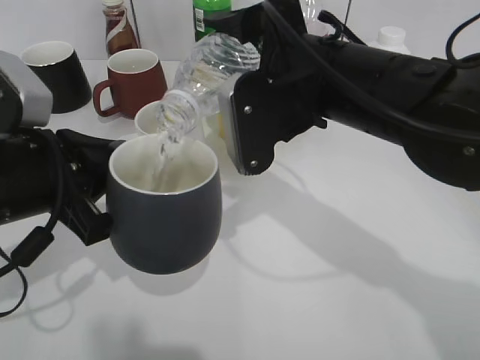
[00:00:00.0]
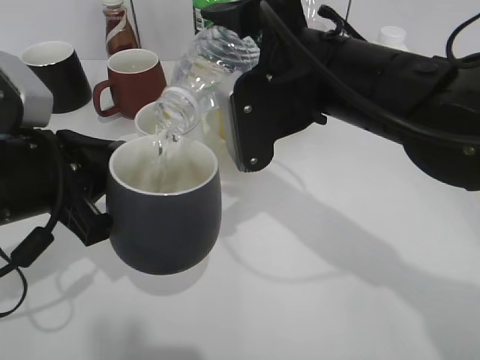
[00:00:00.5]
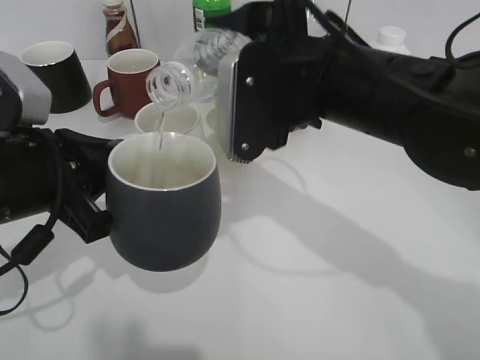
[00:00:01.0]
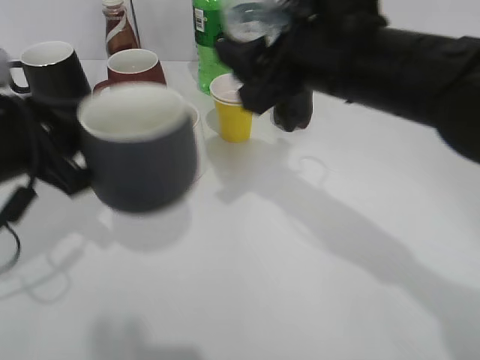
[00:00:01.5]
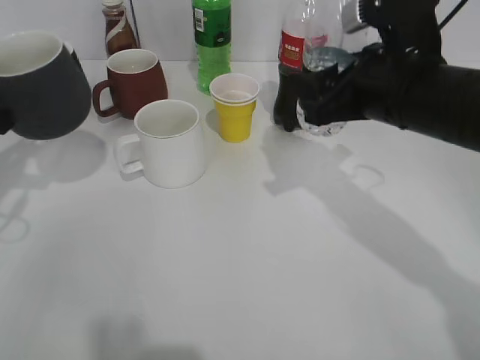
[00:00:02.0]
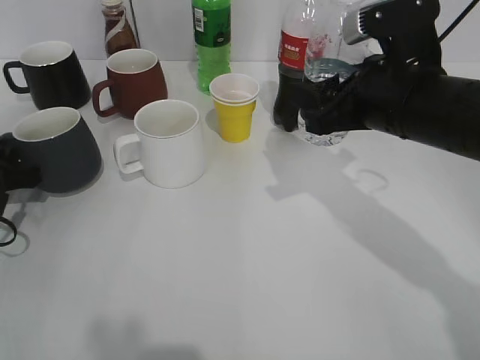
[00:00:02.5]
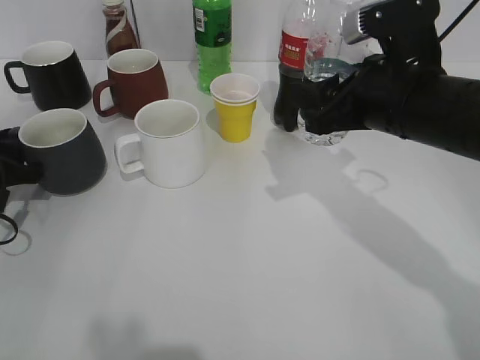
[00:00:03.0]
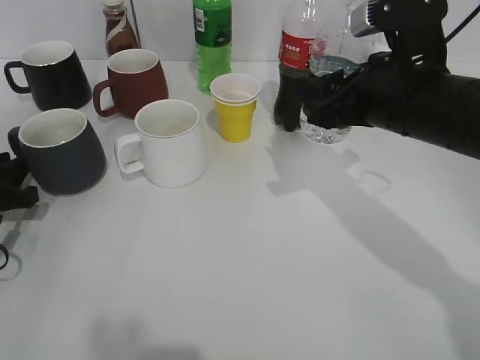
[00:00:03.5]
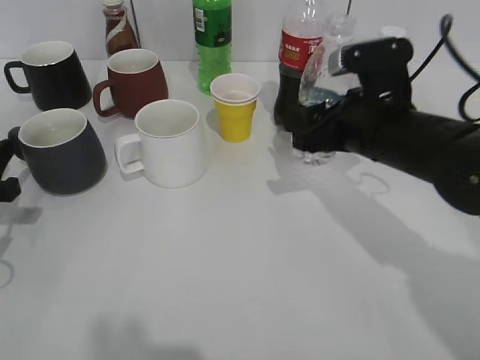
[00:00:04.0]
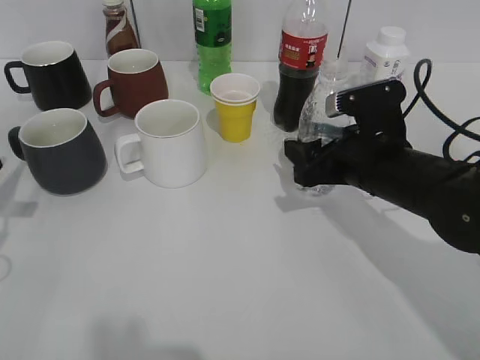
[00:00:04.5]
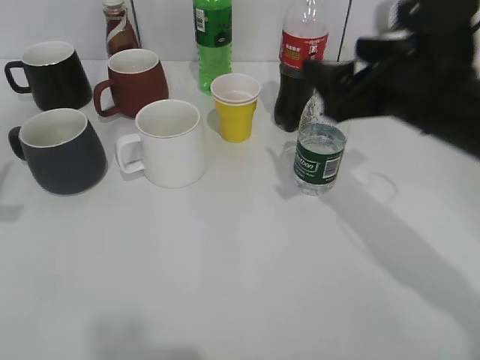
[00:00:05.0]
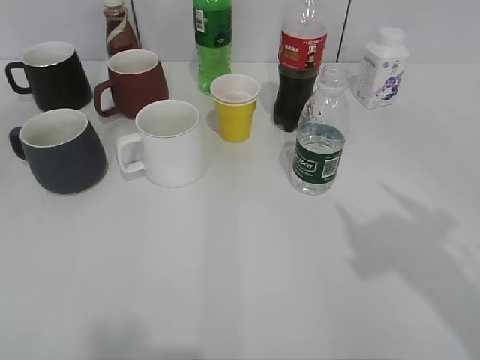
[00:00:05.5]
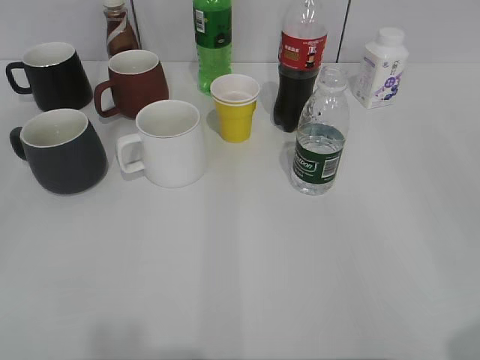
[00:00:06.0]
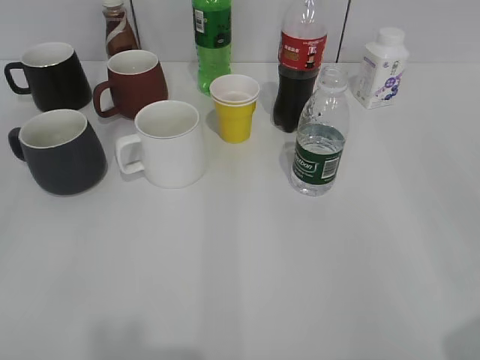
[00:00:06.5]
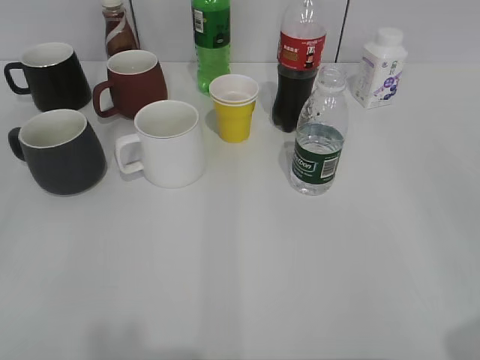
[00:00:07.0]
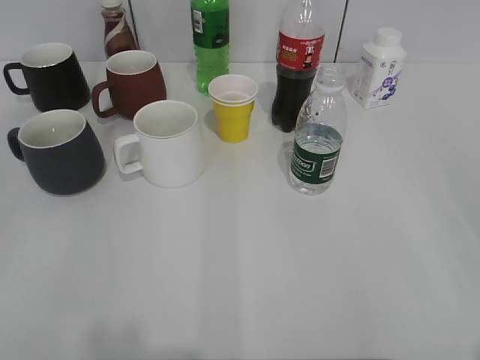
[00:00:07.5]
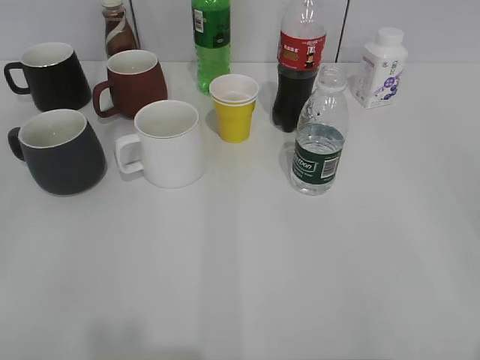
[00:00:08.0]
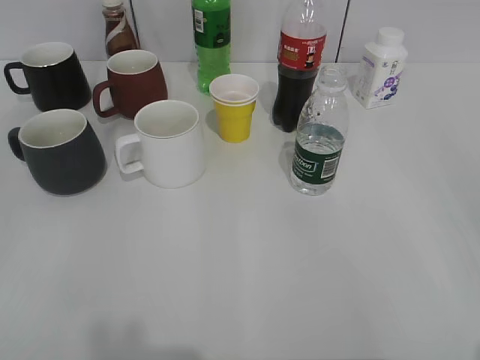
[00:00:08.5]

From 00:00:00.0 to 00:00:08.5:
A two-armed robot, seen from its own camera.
Step, from 00:00:01.5 to 00:00:03.5: Place the black cup on the table with left gripper.
Step, from 00:00:04.0 to 00:00:04.5: Place the water bottle on the table with right gripper.
From 00:00:00.0 to 00:00:02.0: The right gripper travels to the right by approximately 10 cm. The left gripper heads to the left and forward, covering roughly 15 cm.
From 00:00:02.0 to 00:00:04.0: Both grippers move downward, approximately 5 cm. The left gripper opens up.
From 00:00:04.0 to 00:00:06.5: The right gripper shifts roughly 30 cm backward and to the right, and opens up, while the left gripper shifts some 30 cm backward and upward, and opens.

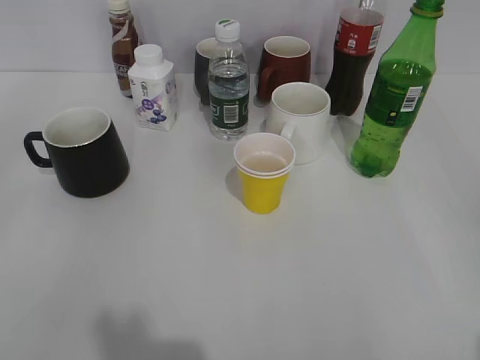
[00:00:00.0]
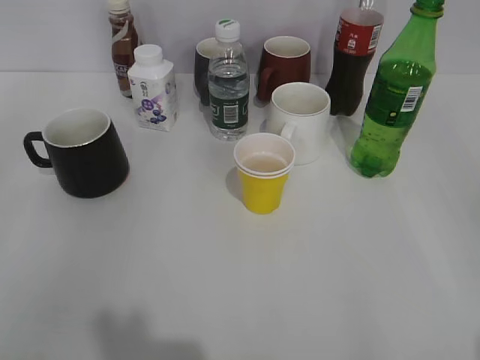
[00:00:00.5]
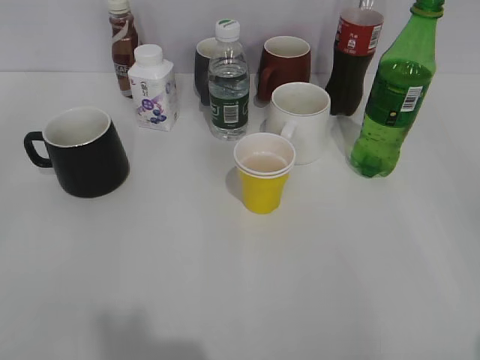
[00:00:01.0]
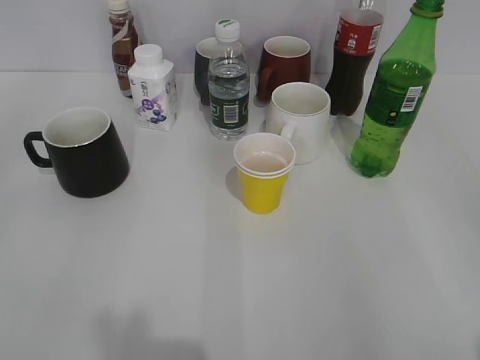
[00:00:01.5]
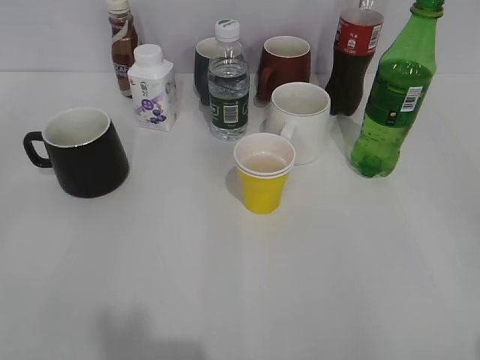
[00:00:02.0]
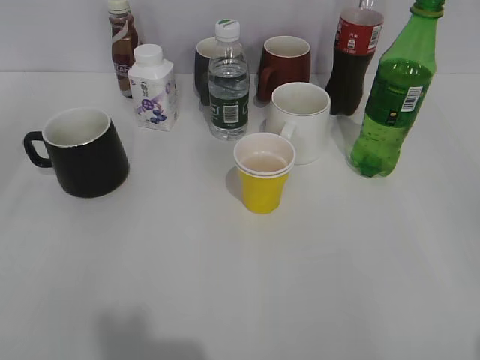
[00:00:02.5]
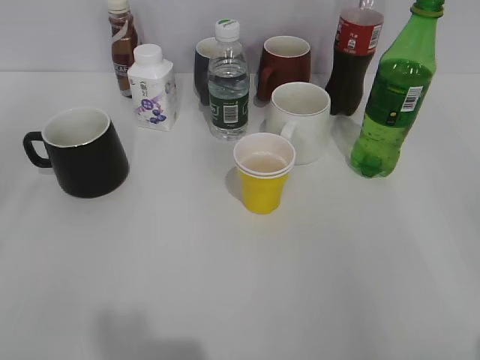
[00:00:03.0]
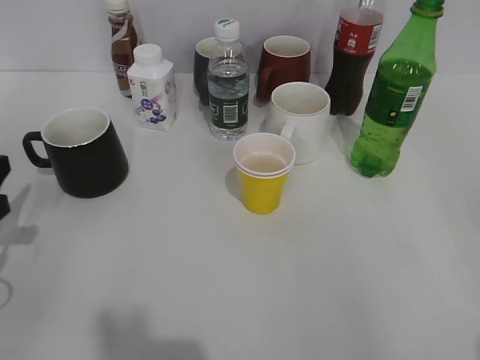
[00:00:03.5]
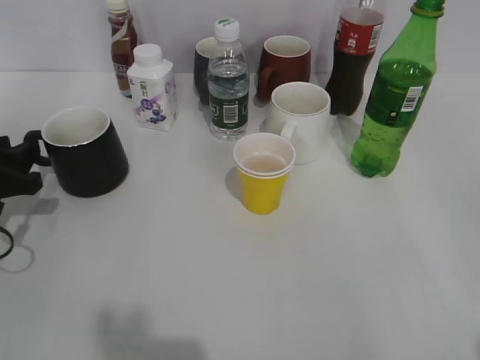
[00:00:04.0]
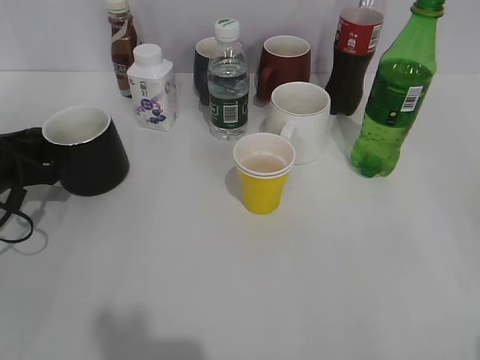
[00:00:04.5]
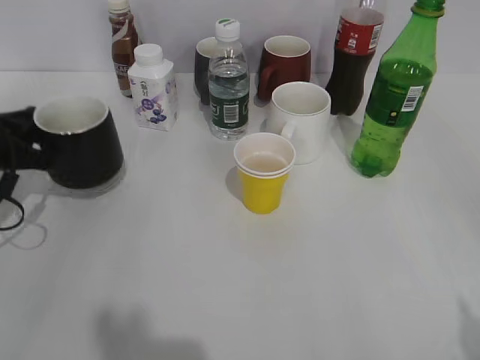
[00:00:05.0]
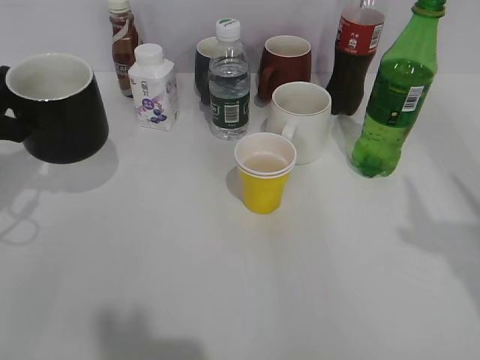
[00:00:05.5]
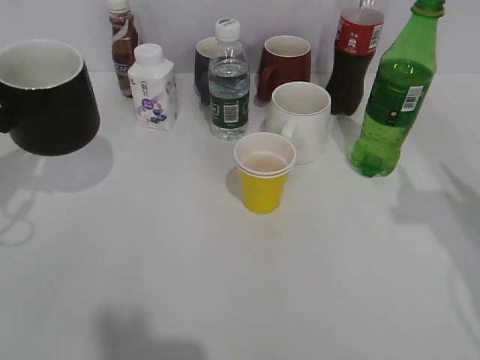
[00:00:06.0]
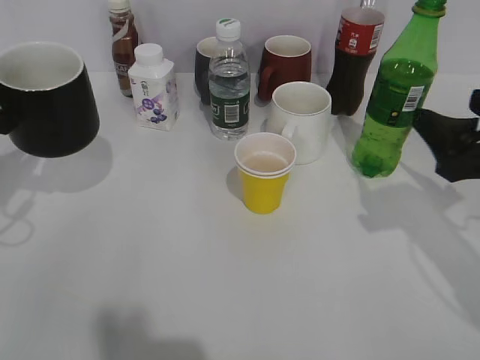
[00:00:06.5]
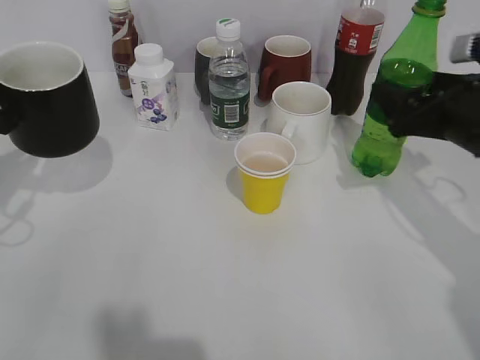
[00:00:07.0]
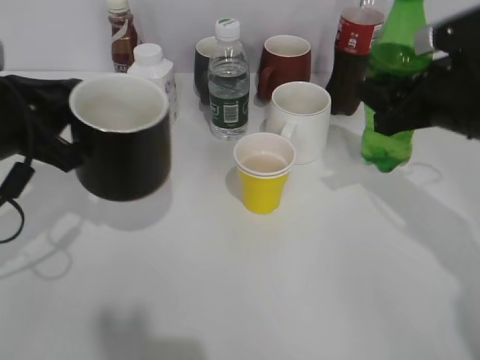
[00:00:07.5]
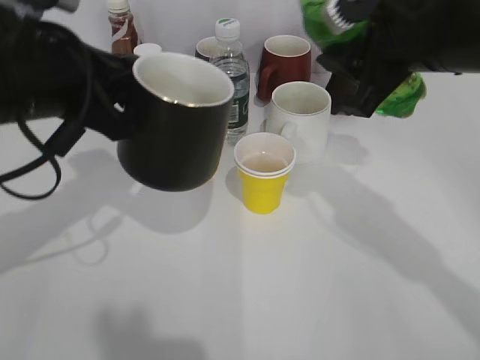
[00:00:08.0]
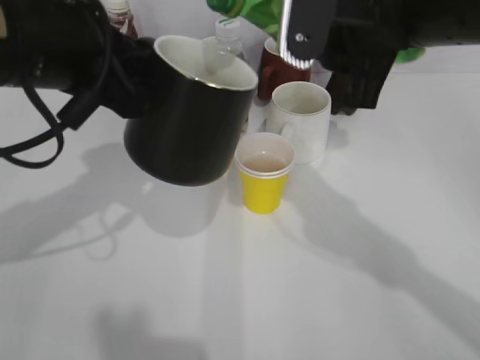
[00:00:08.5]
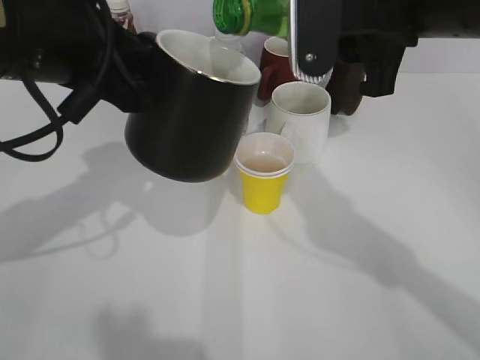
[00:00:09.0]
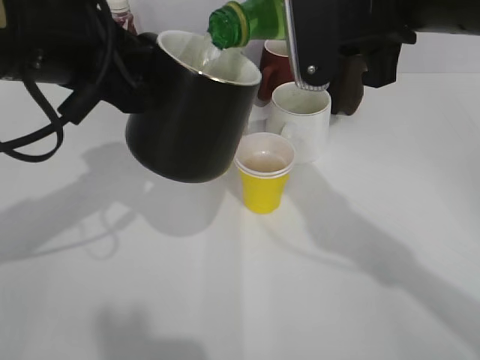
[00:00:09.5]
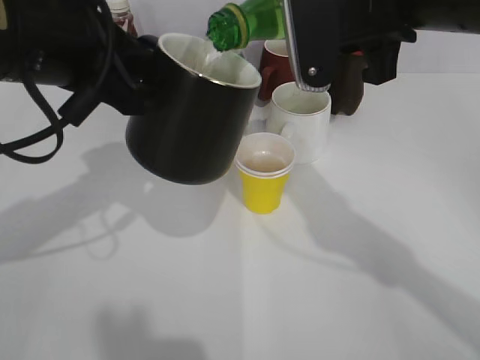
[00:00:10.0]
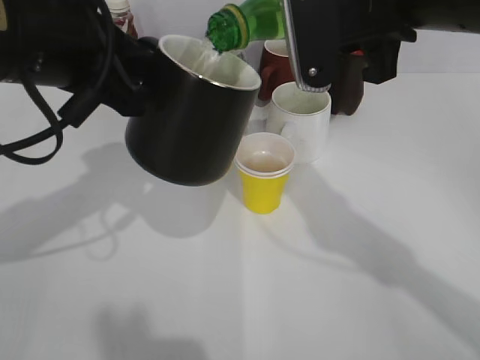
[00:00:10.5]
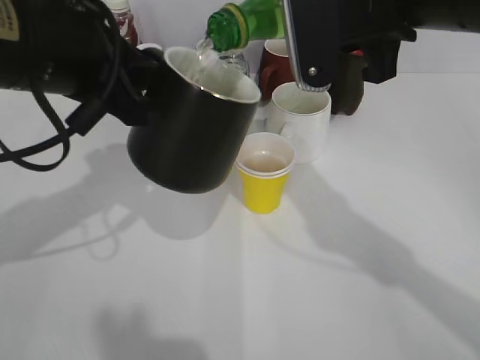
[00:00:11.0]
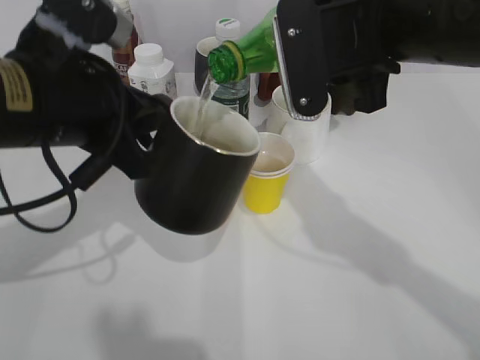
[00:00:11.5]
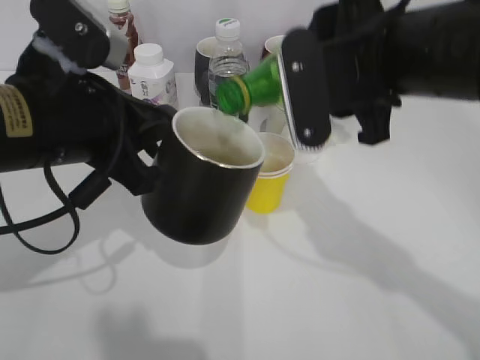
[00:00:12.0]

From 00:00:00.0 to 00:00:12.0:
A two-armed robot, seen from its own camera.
Step, from 00:00:02.5 to 00:00:04.5: Grasp the black cup with left gripper.
Step, from 00:00:05.0 to 00:00:05.5: Lift the black cup with left gripper.
Step, from 00:00:06.5 to 00:00:07.0: Grasp the bottle with sprite with right gripper.
Step, from 00:00:07.5 to 00:00:11.5: Pour the sprite from bottle to cup with right gripper.
From 00:00:02.0 to 00:00:04.0: The left gripper moves forward and downward, some 30 cm.
From 00:00:04.0 to 00:00:06.0: The right gripper shifts roughly 20 cm forward, while the left gripper goes about 10 cm upward, and closes.
From 00:00:06.0 to 00:00:08.0: The left gripper goes roughly 15 cm to the right and upward; the right gripper travels to the left and forward by about 15 cm, and opens, then closes again.
From 00:00:10.0 to 00:00:12.0: The right gripper changes place by approximately 5 cm; the left gripper heads downward, covering about 5 cm.

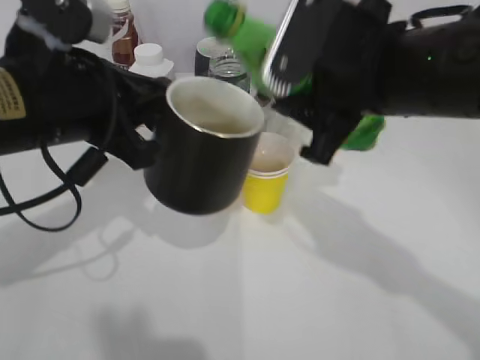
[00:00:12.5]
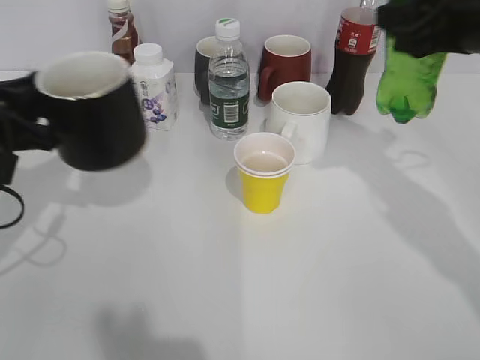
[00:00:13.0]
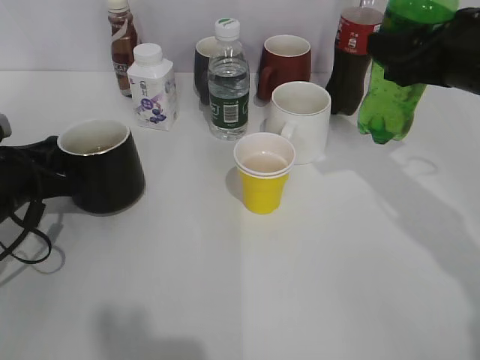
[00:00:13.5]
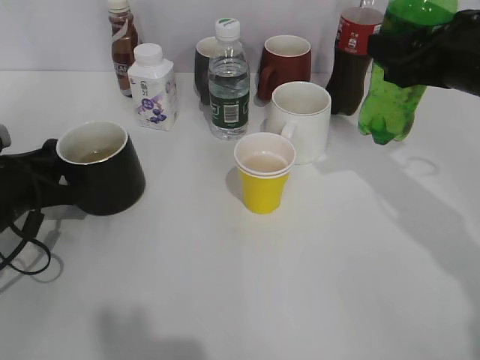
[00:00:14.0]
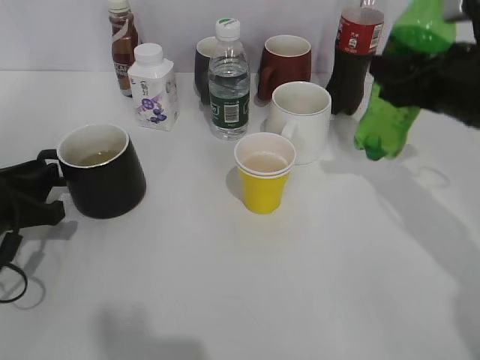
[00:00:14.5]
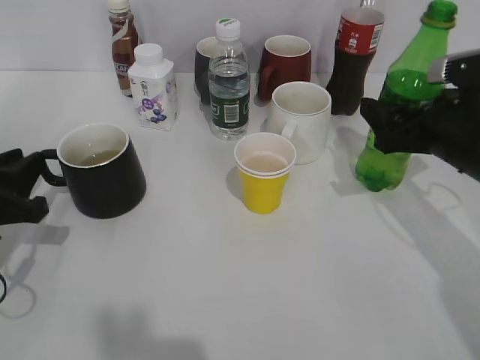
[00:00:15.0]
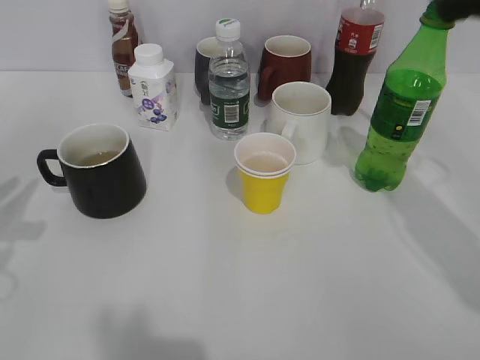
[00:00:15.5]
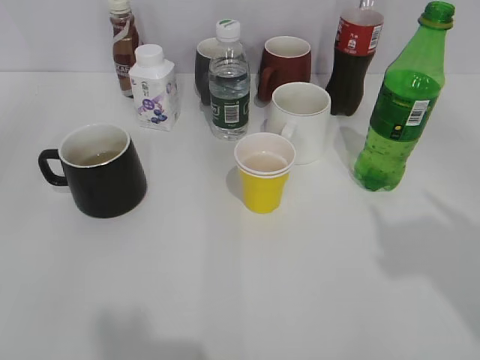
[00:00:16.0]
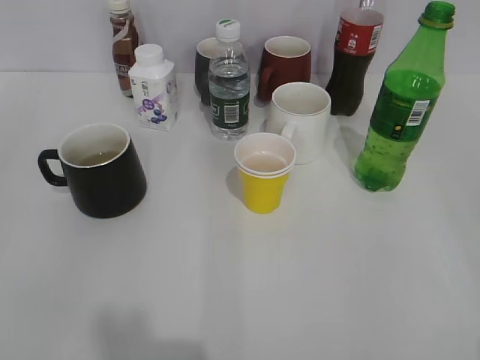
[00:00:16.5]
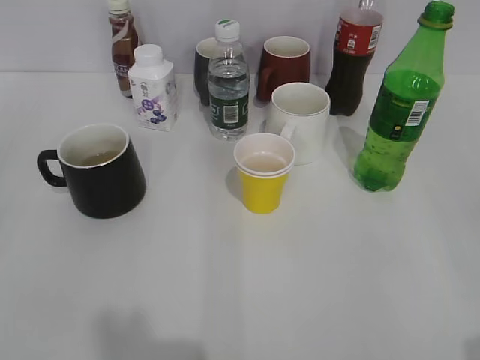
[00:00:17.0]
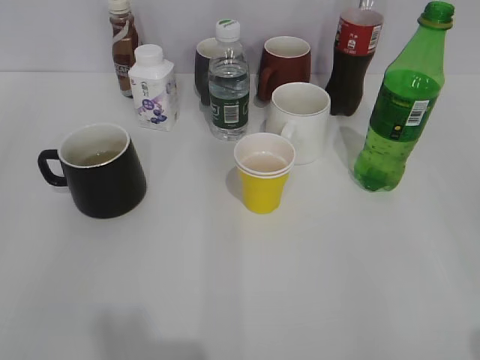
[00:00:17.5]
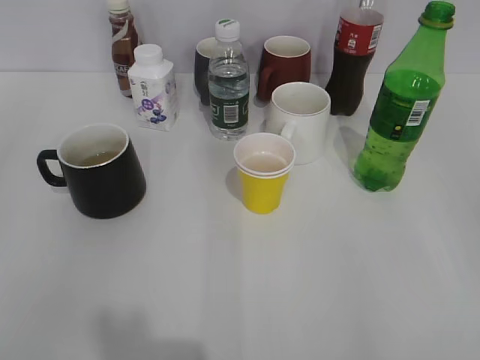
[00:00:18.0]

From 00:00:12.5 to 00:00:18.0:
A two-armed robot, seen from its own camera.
Step, from 00:00:12.5 to 00:00:14.0: Place the black cup on the table with left gripper.
Step, from 00:00:14.5 to 00:00:15.5: Place the sprite bottle on the table with right gripper.
From 00:00:12.5 to 00:00:14.5: The left gripper heads downward and to the left, covering roughly 20 cm, and opens up. The right gripper shifts approximately 15 cm to the right, downward and forward.
From 00:00:14.5 to 00:00:16.0: The left gripper is displaced upward and backward by approximately 25 cm, and opens up; the right gripper moves backward and upward, approximately 25 cm, and opens.
From 00:00:16.0 to 00:00:18.0: The left gripper shifts some 5 cm backward.
